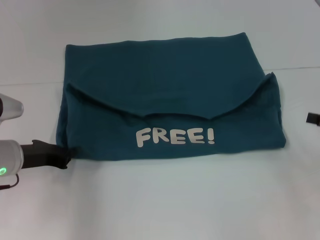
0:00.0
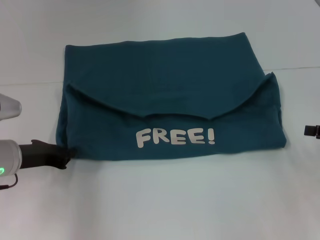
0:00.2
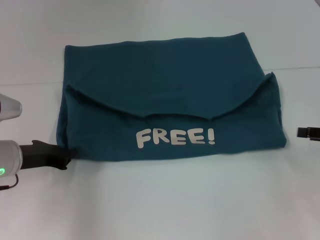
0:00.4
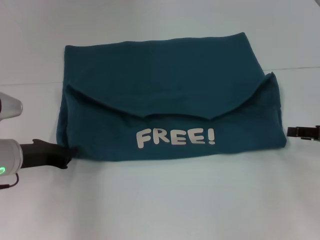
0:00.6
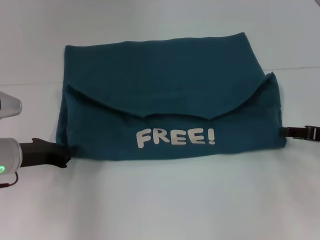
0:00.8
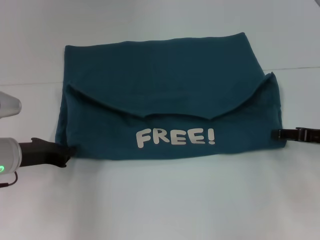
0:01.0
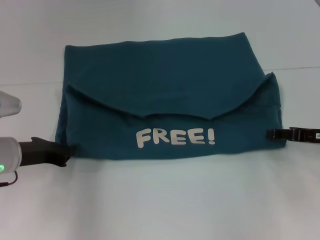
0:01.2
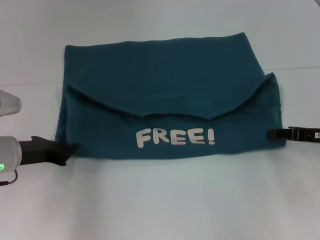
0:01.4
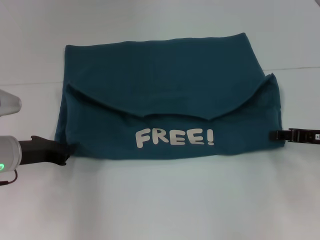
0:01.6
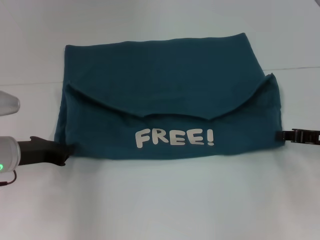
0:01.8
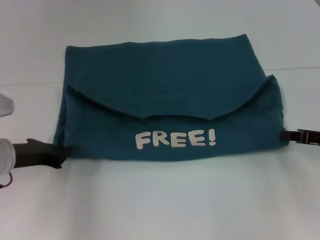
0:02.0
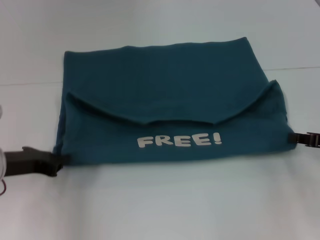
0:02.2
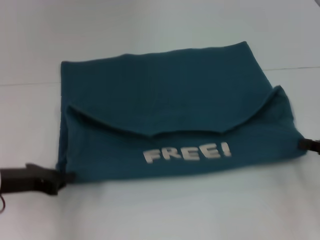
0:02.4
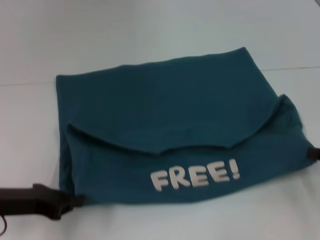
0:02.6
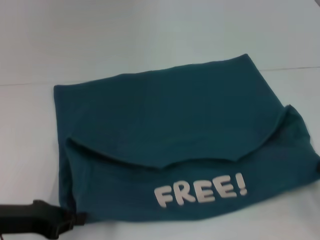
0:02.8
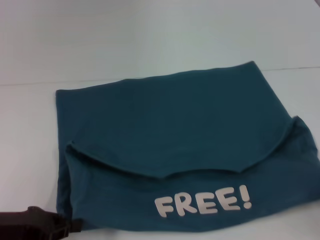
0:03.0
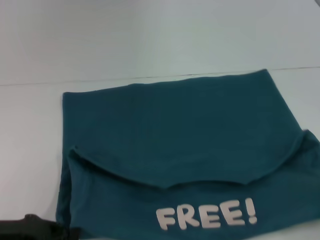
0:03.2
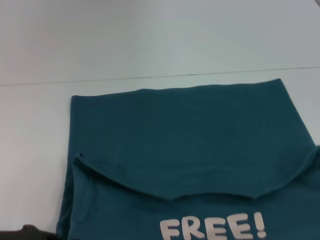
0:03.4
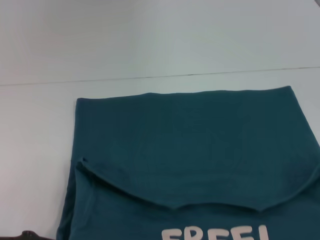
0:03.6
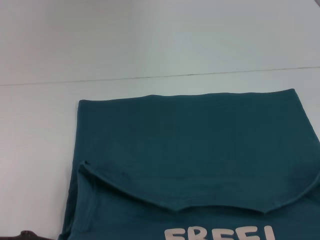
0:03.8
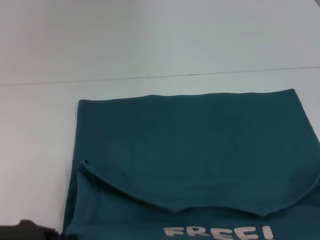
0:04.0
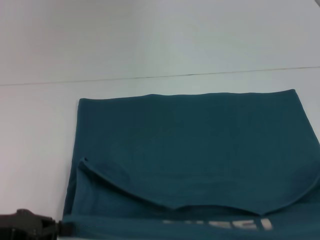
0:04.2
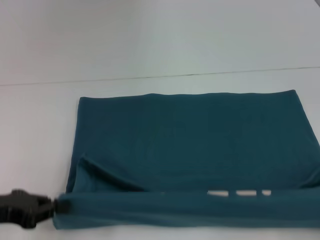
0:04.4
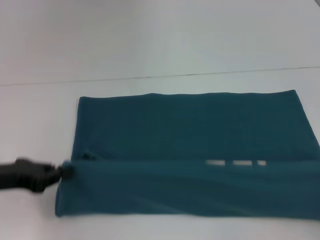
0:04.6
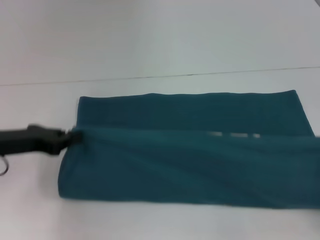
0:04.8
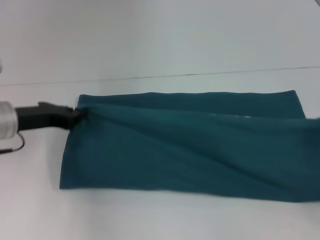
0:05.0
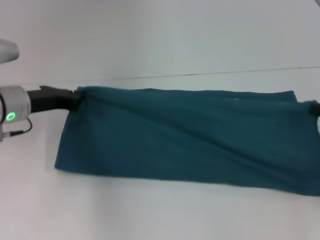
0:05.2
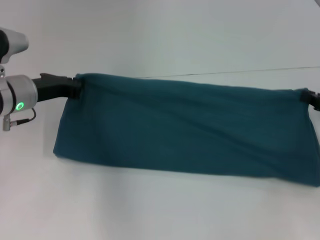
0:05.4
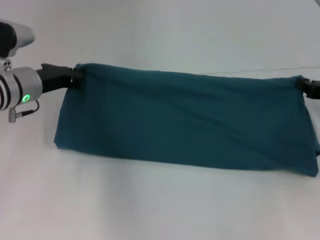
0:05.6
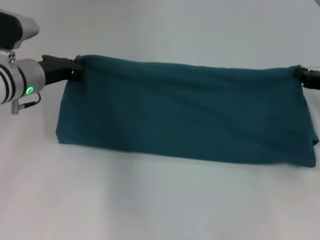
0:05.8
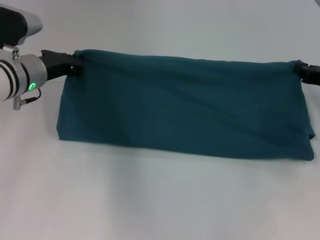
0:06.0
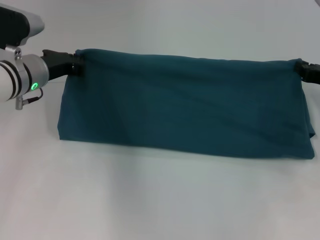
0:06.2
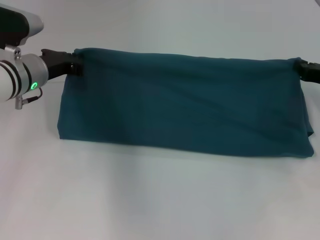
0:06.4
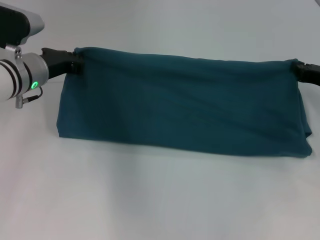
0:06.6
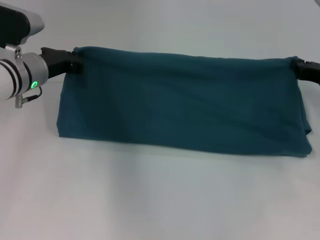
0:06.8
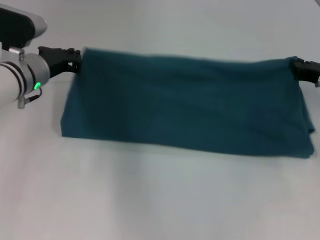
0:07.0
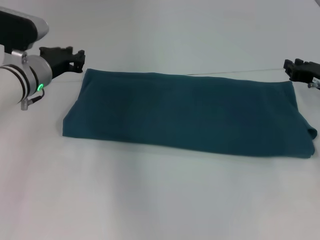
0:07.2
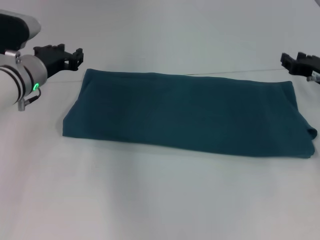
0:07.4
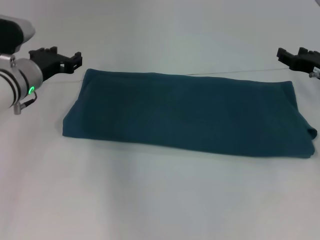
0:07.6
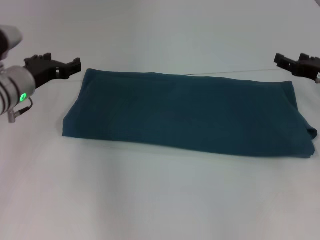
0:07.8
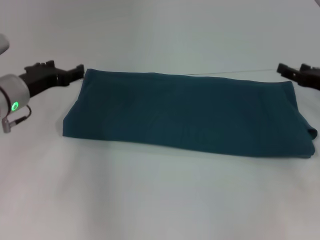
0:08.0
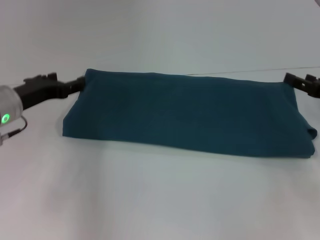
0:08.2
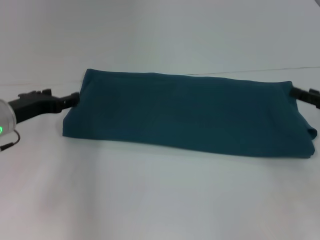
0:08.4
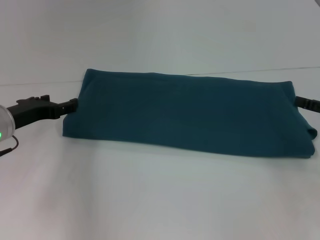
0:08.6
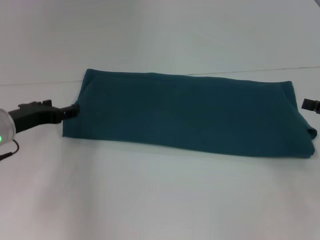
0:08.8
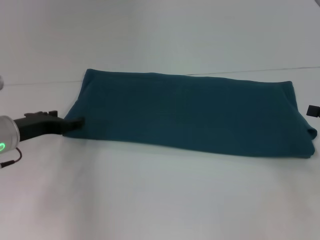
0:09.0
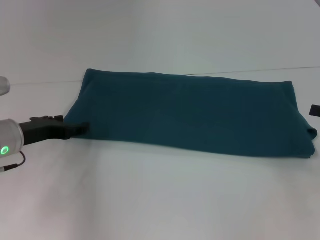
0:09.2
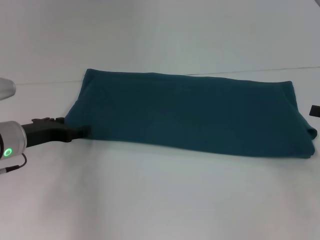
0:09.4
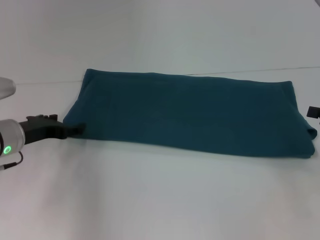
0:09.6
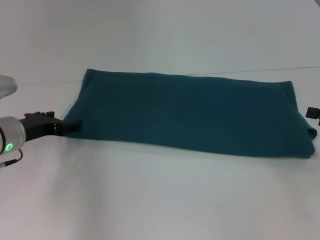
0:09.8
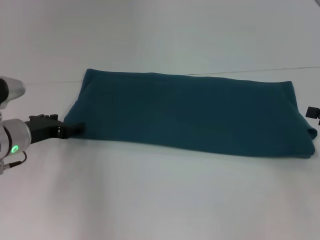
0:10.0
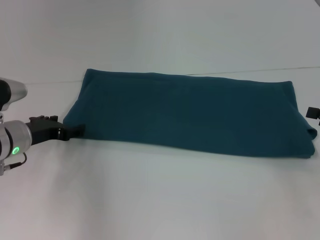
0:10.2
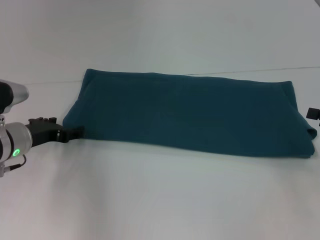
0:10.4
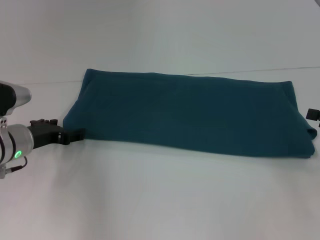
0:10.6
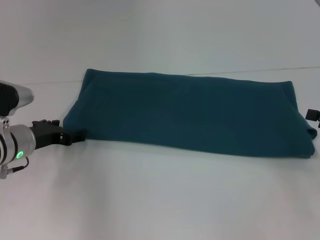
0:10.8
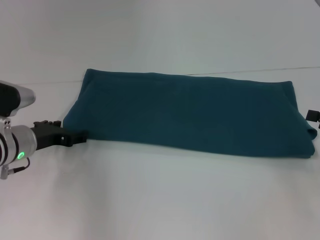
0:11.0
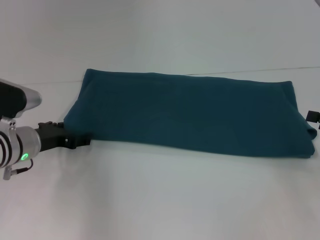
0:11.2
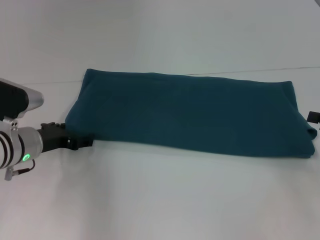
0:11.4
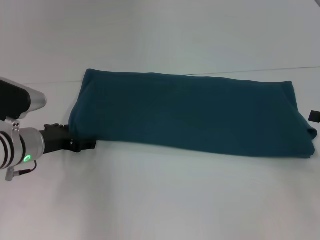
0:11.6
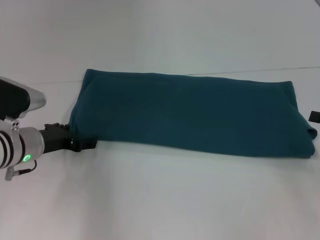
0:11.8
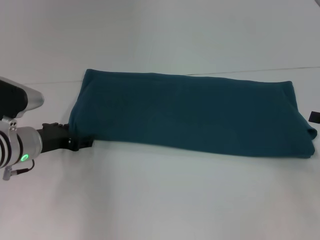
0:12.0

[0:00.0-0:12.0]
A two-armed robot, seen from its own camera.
Step, 0:00.0 to 0:03.8: Pull the clothes with your left hand.
Step, 0:00.0 to 0:03.8: Pull the clothes with your right hand.
Step, 0:04.0 to 0:07.4: Fold the clothes to the left.
Step, 0:04.0 to 0:07.4: Fold the clothes to the right.
0:00.0 to 0:01.6: The right gripper goes some 5 cm to the left.
0:01.6 to 0:03.0: The left gripper goes roughly 10 cm backward, while the right gripper goes about 15 cm backward and to the right, and closes up.
0:03.0 to 0:04.4: The right gripper heads backward, covering approximately 5 cm.
0:04.4 to 0:06.0: The right gripper heads forward, covering approximately 25 cm. Meanwhile the left gripper heads forward and to the right, covering approximately 20 cm.
0:06.0 to 0:07.6: The right gripper opens.
0:07.6 to 0:09.0: The left gripper shifts about 10 cm backward, and opens. The right gripper is displaced backward and to the right by roughly 15 cm, and opens up.
0:09.0 to 0:12.0: The grippers make only small movements.

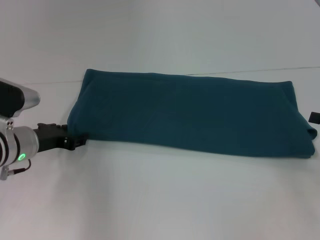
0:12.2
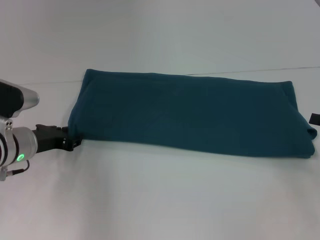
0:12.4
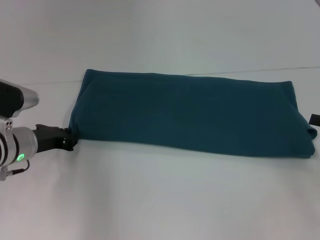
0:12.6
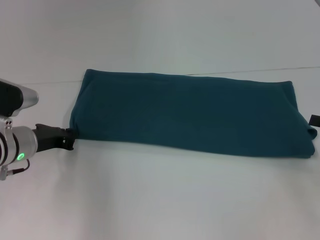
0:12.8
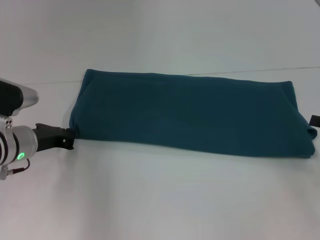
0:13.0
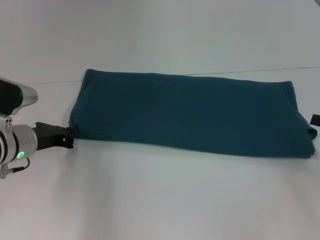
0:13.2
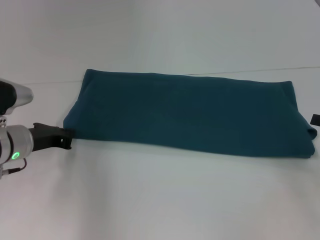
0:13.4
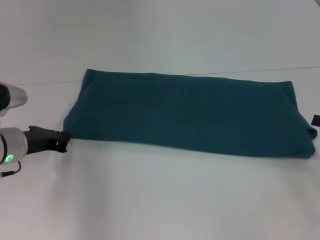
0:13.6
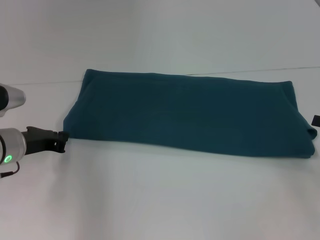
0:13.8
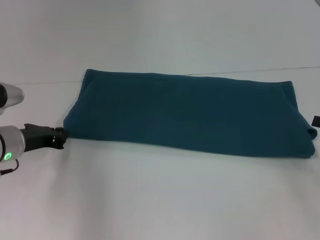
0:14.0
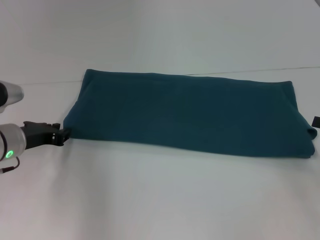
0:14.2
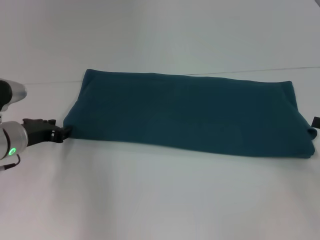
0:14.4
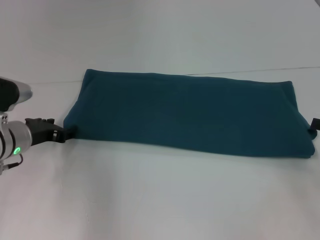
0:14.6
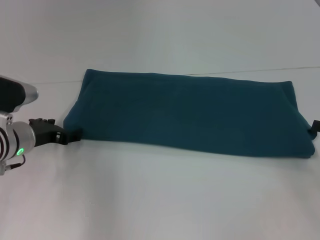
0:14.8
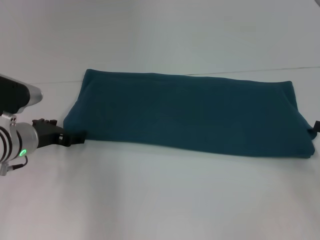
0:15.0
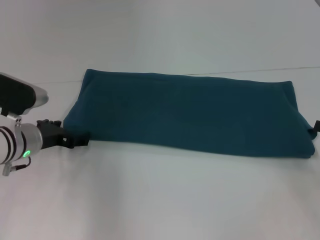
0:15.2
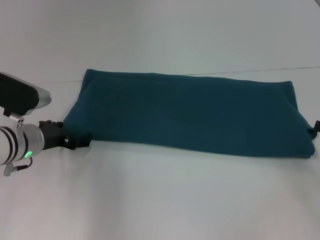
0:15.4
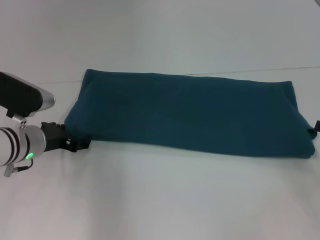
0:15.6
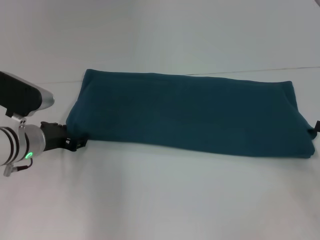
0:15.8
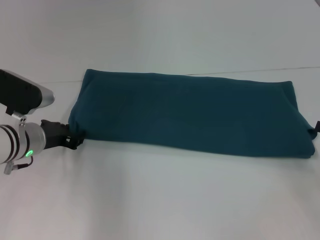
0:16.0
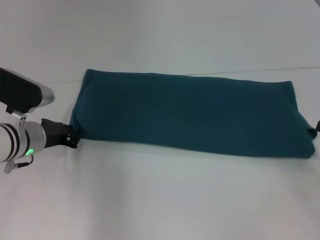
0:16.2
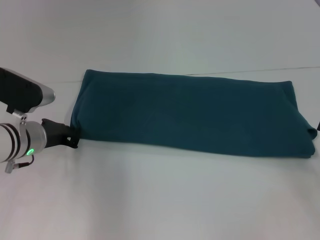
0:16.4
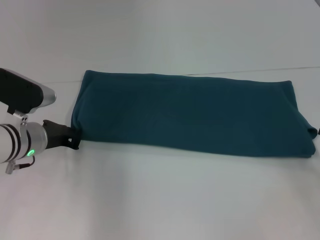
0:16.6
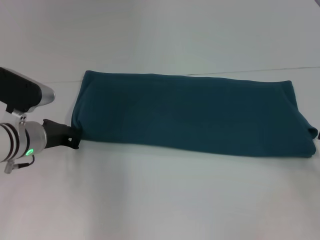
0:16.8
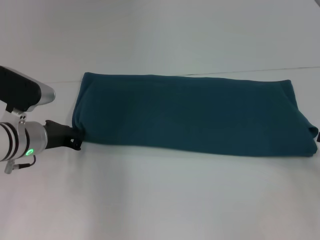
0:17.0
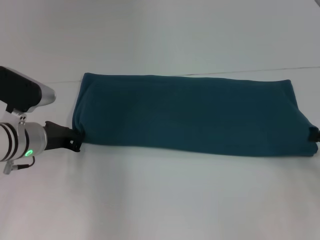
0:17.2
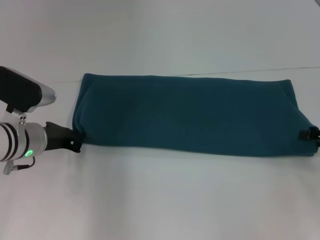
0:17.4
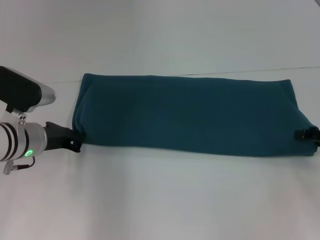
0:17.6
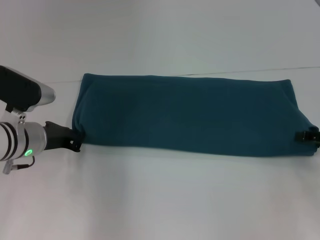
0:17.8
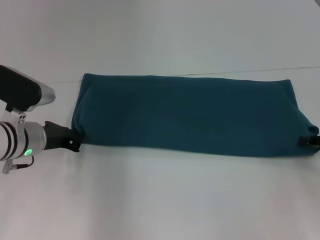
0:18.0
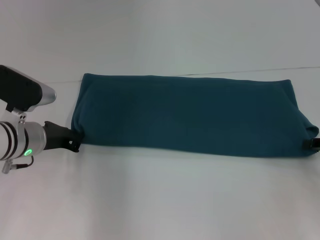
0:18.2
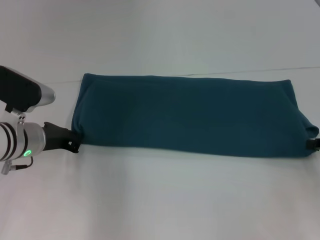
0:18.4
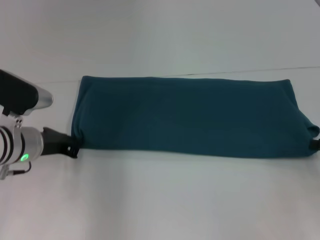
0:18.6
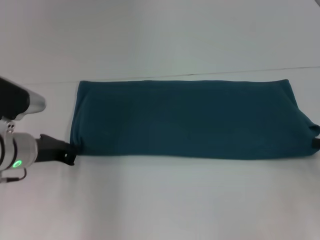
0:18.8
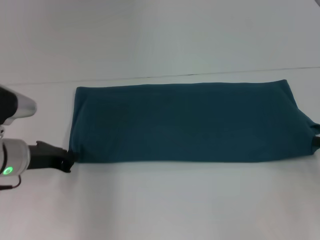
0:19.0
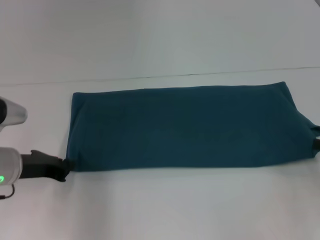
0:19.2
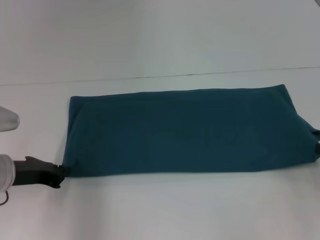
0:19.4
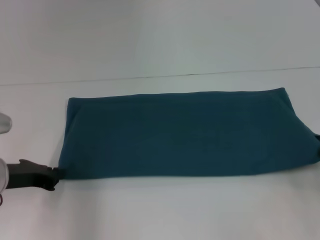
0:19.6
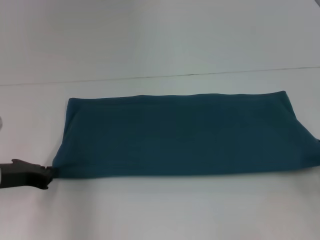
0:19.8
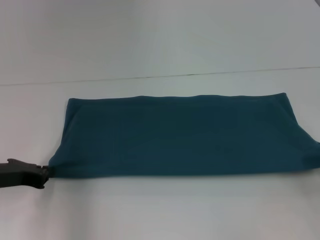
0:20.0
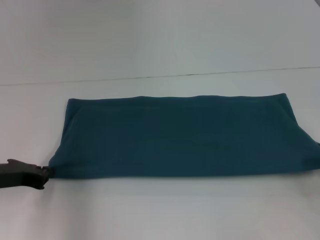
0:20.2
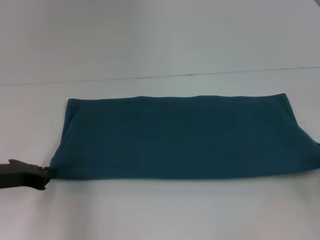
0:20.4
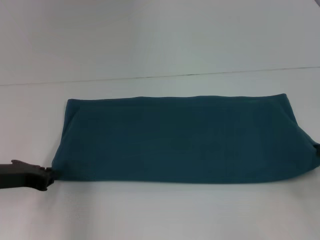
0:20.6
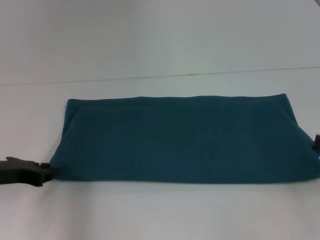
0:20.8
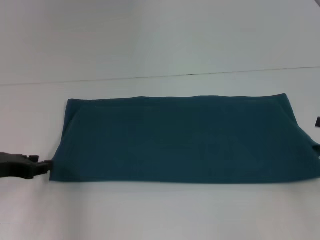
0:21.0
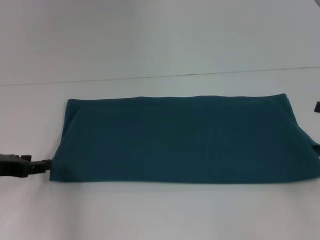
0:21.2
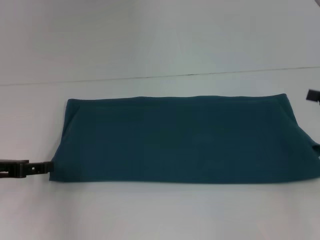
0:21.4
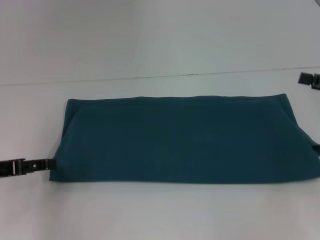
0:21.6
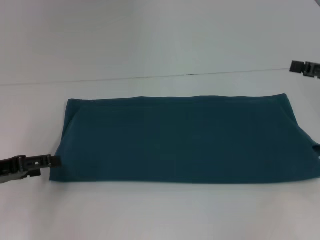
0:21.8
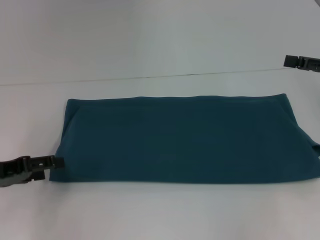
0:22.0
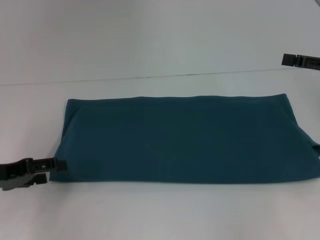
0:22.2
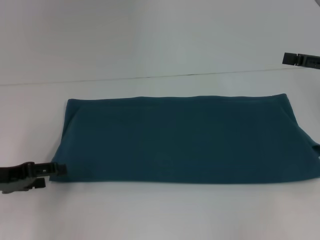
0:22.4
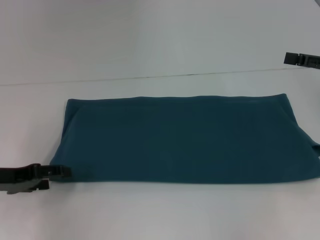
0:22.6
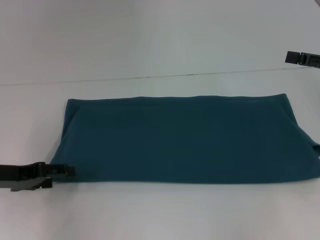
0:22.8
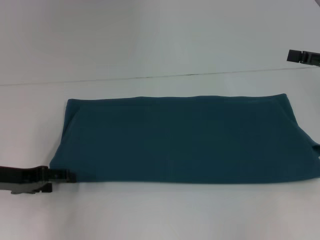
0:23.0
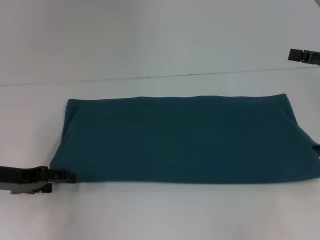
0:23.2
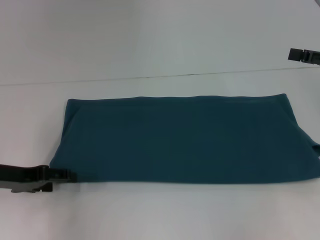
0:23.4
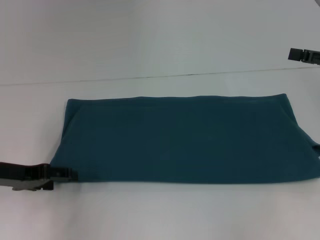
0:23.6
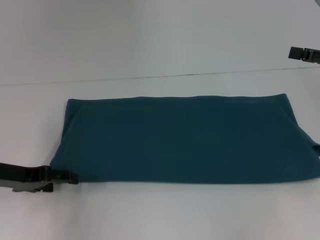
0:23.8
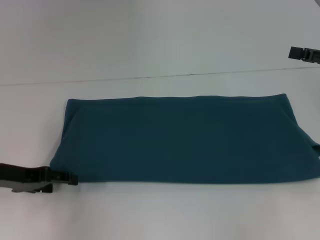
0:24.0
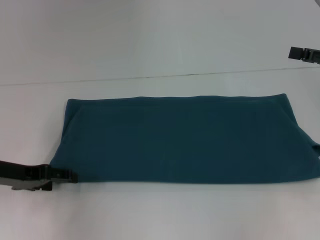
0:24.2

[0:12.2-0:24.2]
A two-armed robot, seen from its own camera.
Step, 0:12.2 to 0:20.8: Pull the clothes with your left hand.
Step, 0:12.2 to 0:20.8: Pull the clothes with your right hand.
0:12.2 to 0:13.8: The left gripper closes.
0:13.8 to 0:15.2: The left gripper opens.
0:15.2 to 0:16.6: The left gripper closes.
0:16.6 to 0:18.2: The right gripper changes place by approximately 5 cm.
0:18.2 to 0:19.8: The left gripper goes about 10 cm backward and to the left. Meanwhile the right gripper closes.
0:19.8 to 0:21.2: The left gripper opens up; the right gripper changes place by about 5 cm, and opens up.
0:21.2 to 0:22.6: The right gripper goes some 10 cm forward and upward, and opens, while the left gripper opens.
0:22.6 to 0:24.2: The grippers make only small movements.
